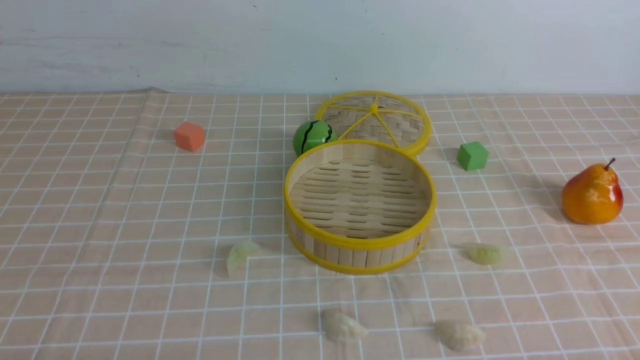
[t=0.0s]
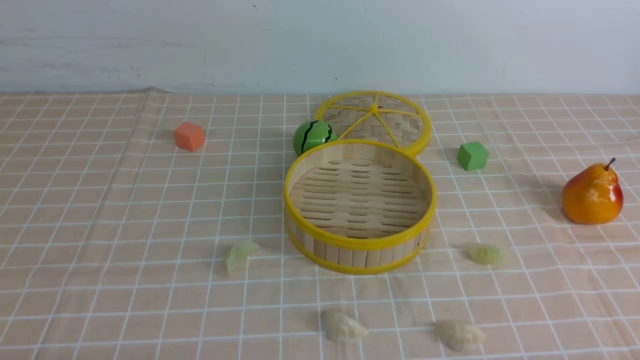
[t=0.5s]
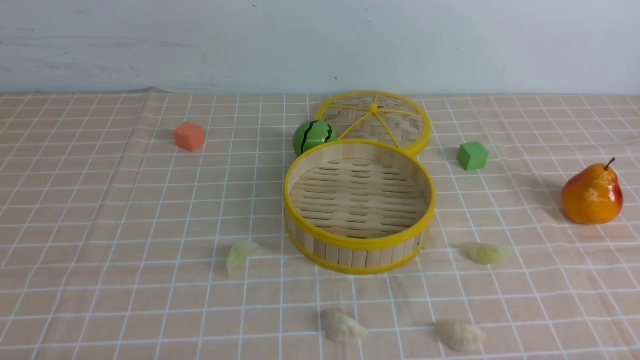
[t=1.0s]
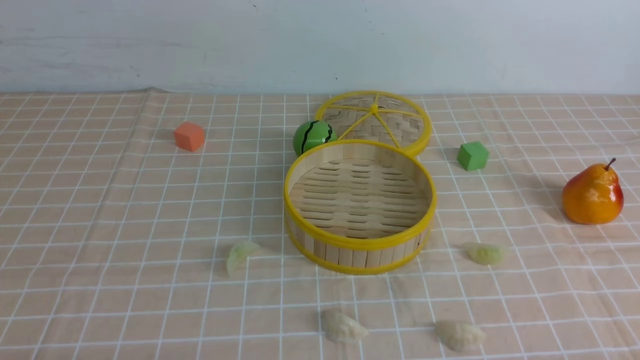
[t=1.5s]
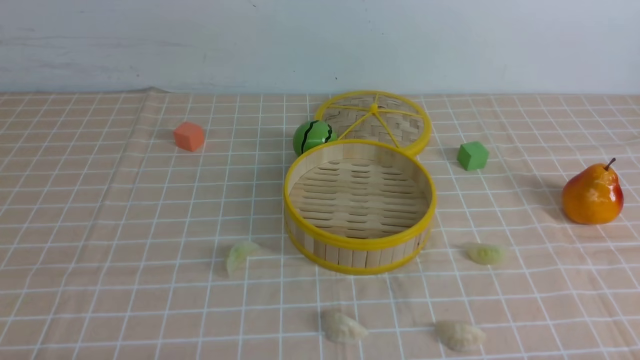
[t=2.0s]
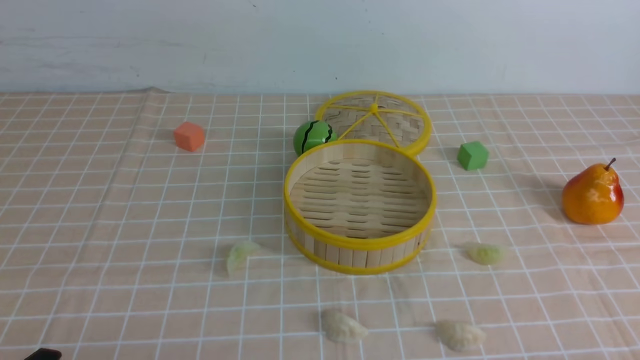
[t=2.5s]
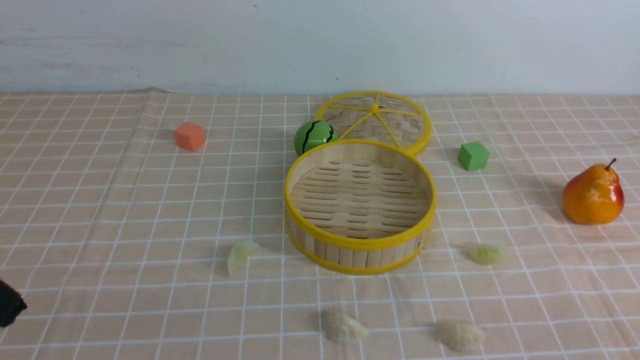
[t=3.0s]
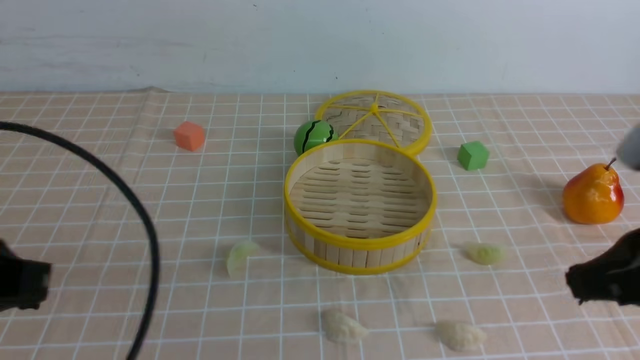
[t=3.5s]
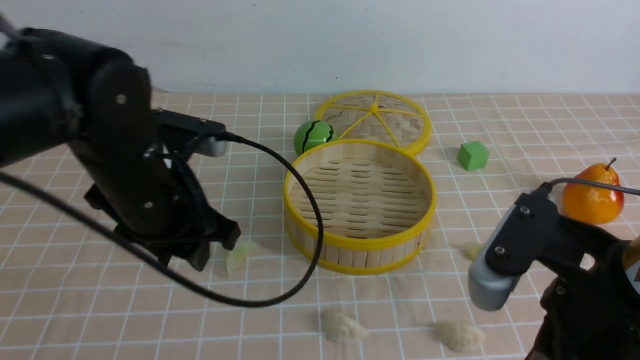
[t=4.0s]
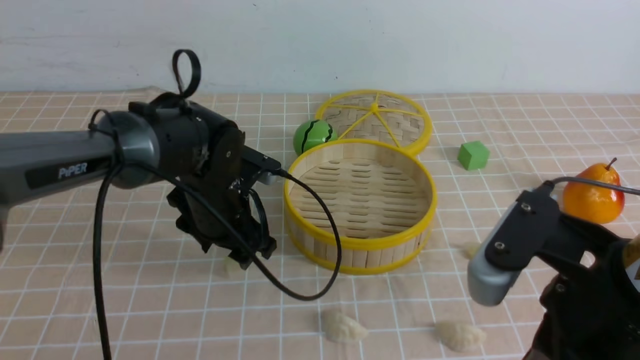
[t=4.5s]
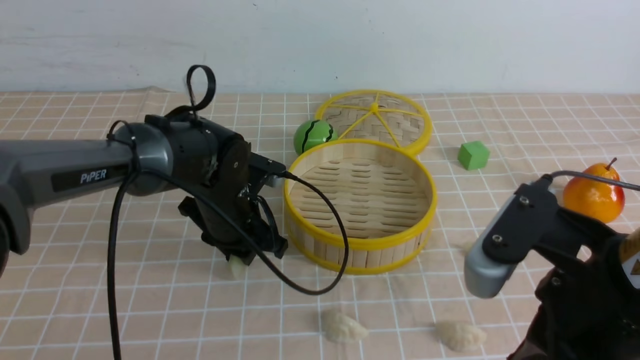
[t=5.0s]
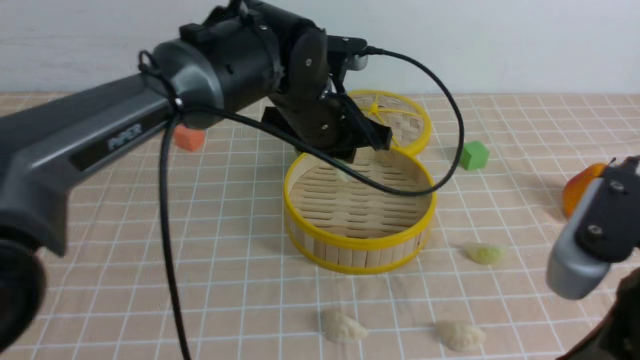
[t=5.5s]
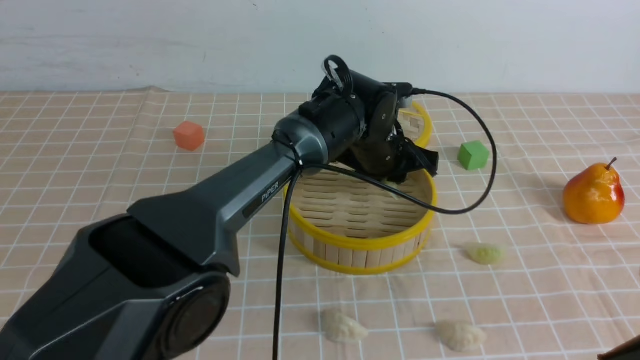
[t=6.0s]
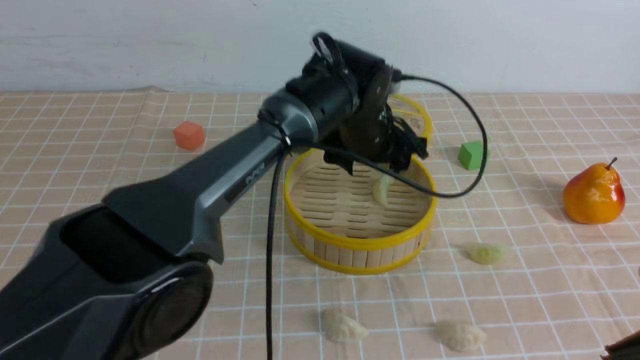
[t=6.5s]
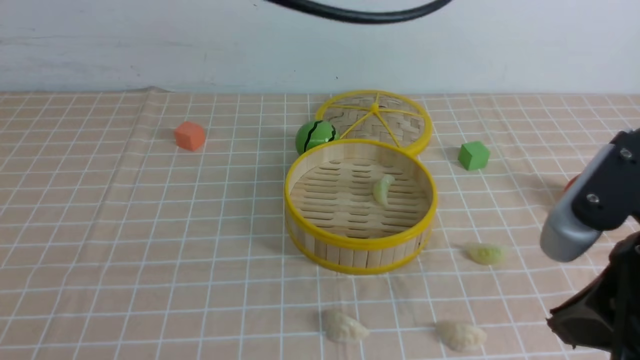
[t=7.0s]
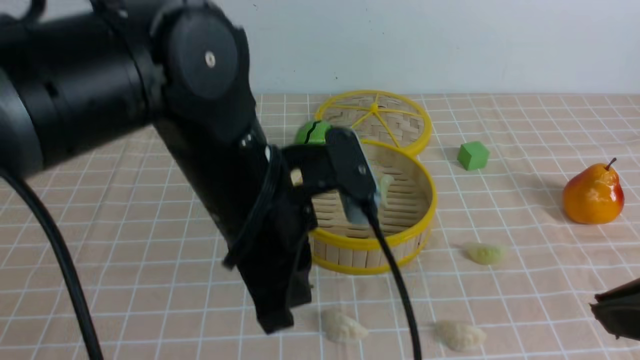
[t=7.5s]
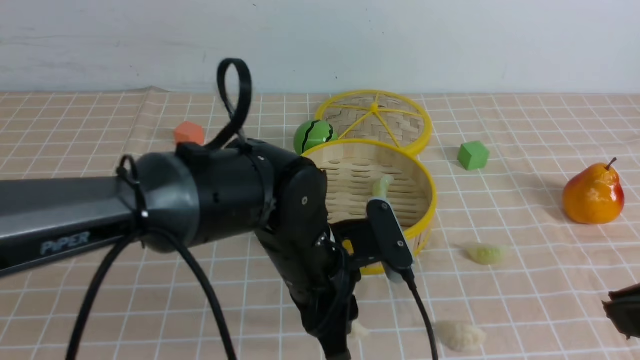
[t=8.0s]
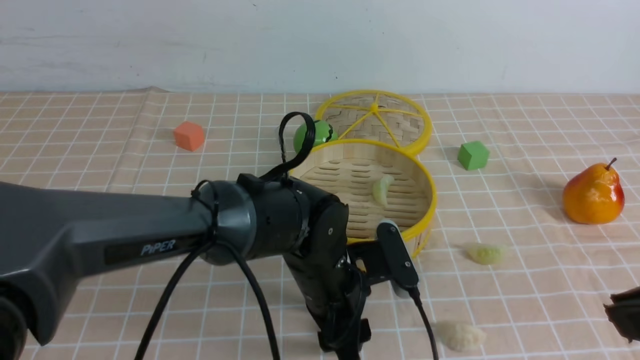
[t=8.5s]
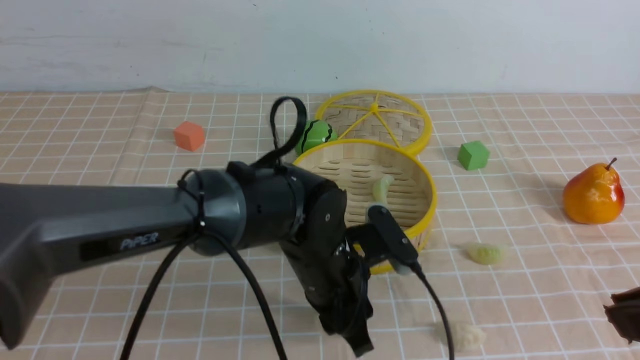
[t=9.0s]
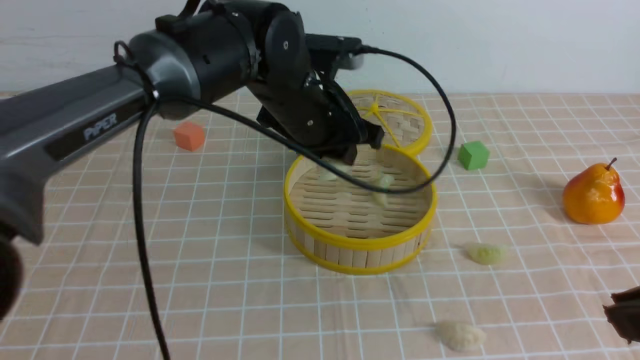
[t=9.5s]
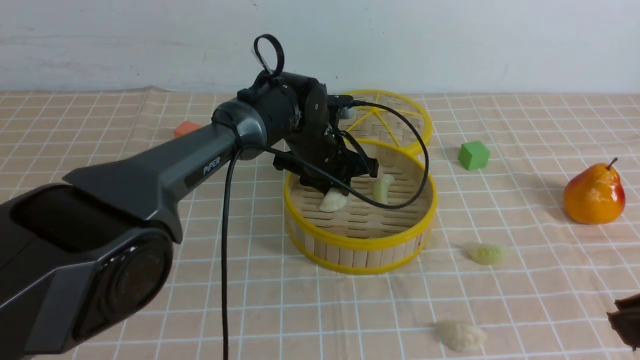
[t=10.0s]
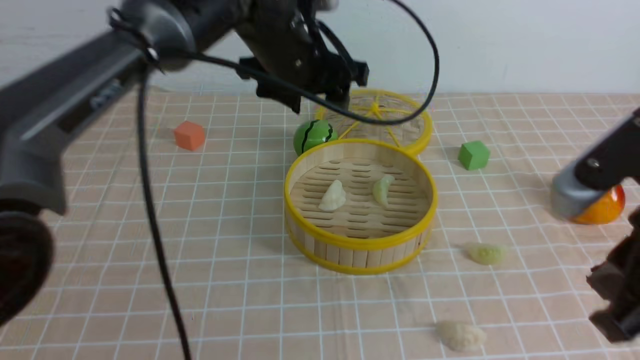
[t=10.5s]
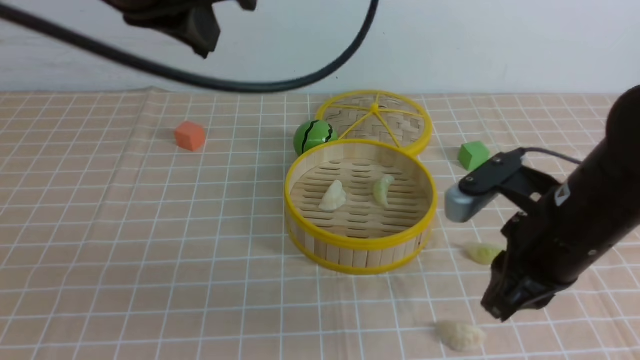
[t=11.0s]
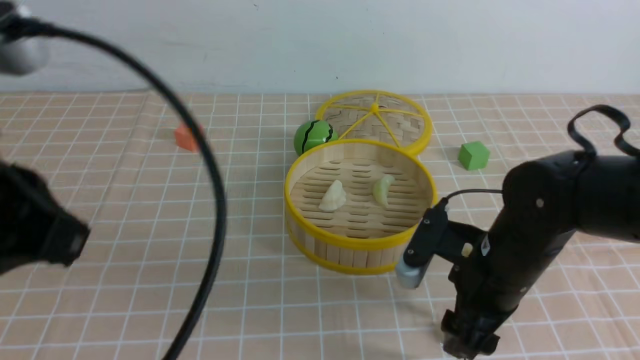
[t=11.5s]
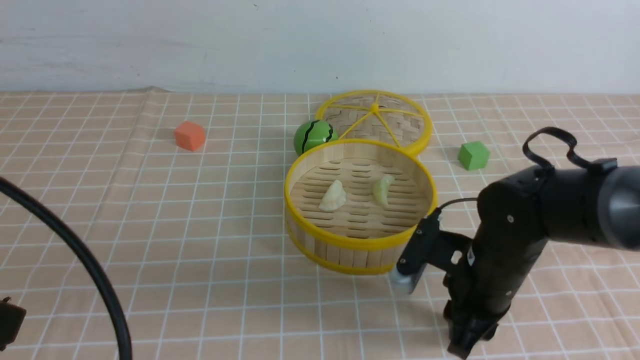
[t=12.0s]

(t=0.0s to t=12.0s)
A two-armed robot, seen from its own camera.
Task of the whole recording: put the dumplings into the steamer on the table with the brown tablecloth.
Step, t=0.0s - t=4.5s: use the left arm to grab a dumpling.
Step, t=5.0s - t=6.5s: use the left arm to put the dumpling into the steamer.
Step, t=7.0s - t=8.5s: use the left arm to grab a dumpling.
Step, t=9.0s - t=10.0s: use the left arm to put the dumpling into the steamer.
Step, t=10.5s - t=11.5s: use the right arm to grab a dumpling.
t=2.0s - t=4.0s: The right gripper shifts approximately 20 cm upward, to the left and forward, and closes up. The left gripper moves forward, upward and to the right, roughly 25 cm, and closes and opens again.
t=4.0s - t=6.0s: The left gripper heads to the right and forward, covering some 30 cm, and opens, then closes again. The right gripper is displaced backward and upward by about 10 cm.
t=6.0s - t=8.0s: The left gripper moves backward, approximately 20 cm, goes upward and returns, some 25 cm each way, and opens and closes again.
t=8.0s - t=10.0s: The left gripper shifts approximately 20 cm forward.
t=10.0s - t=12.0s: The left gripper travels backward, to the left and upward by approximately 40 cm, and closes its fingers. The right gripper travels downward and forward by some 30 cm, and opens its fingers.

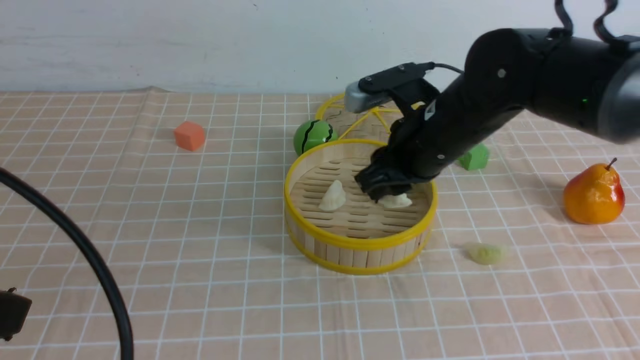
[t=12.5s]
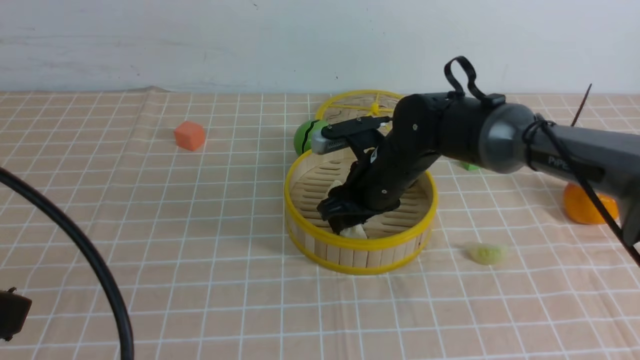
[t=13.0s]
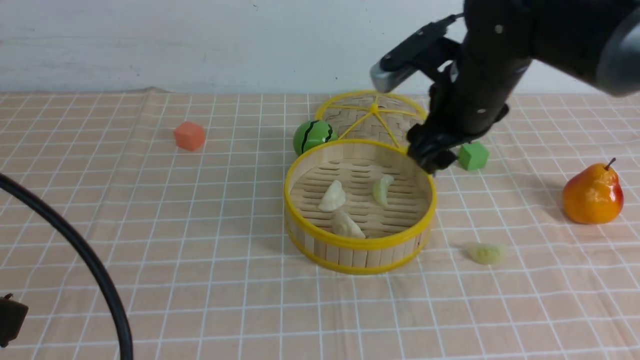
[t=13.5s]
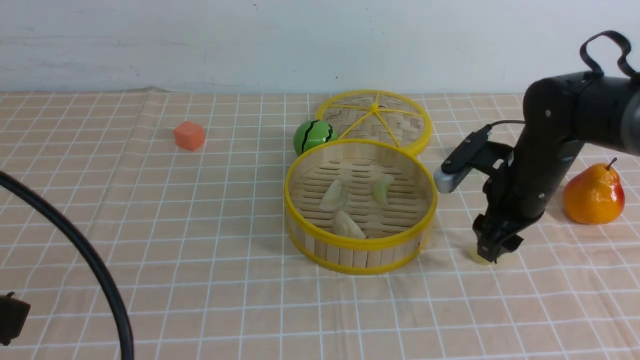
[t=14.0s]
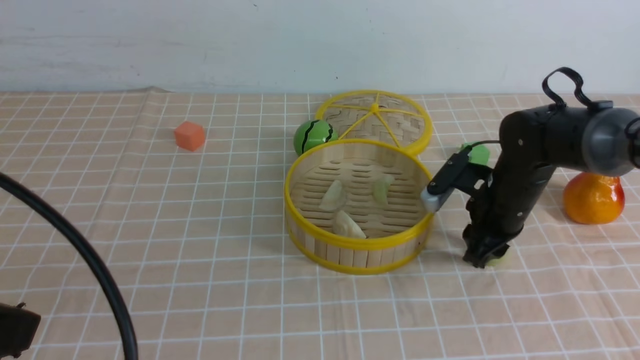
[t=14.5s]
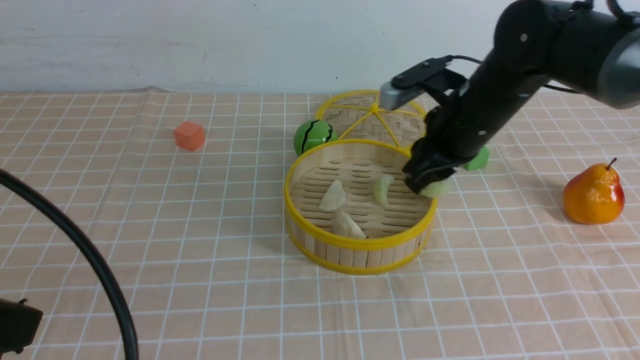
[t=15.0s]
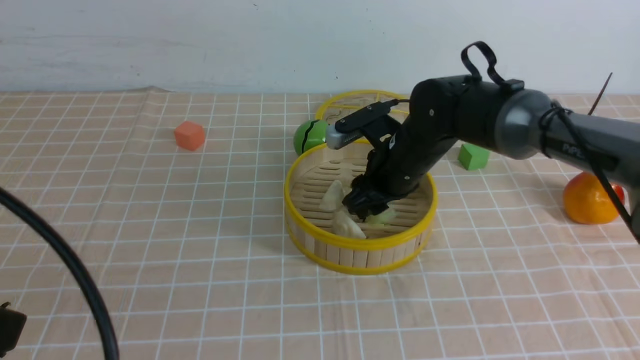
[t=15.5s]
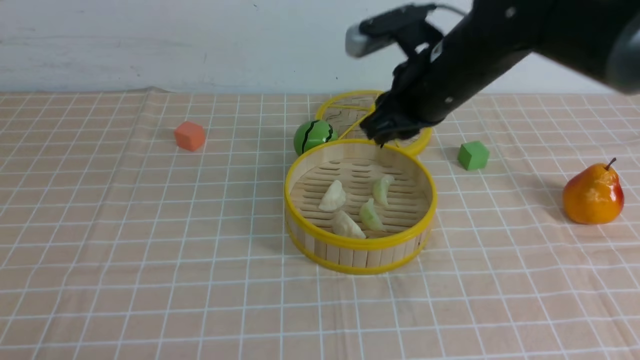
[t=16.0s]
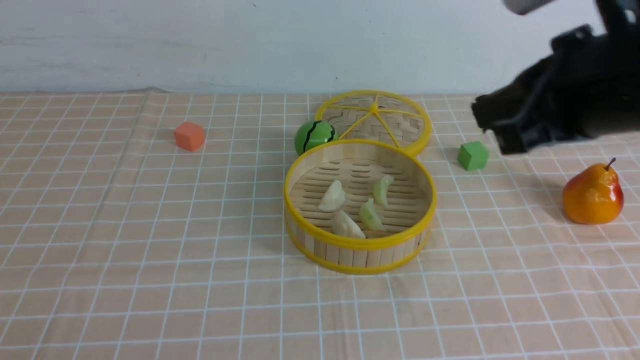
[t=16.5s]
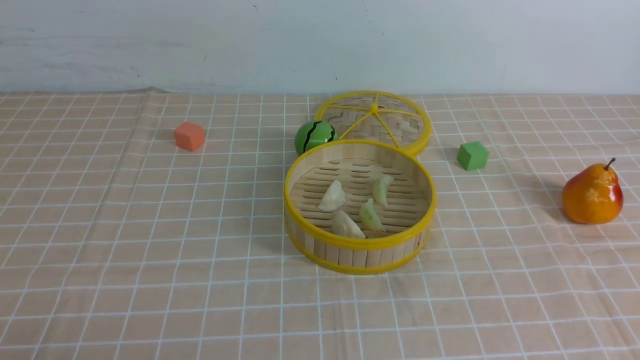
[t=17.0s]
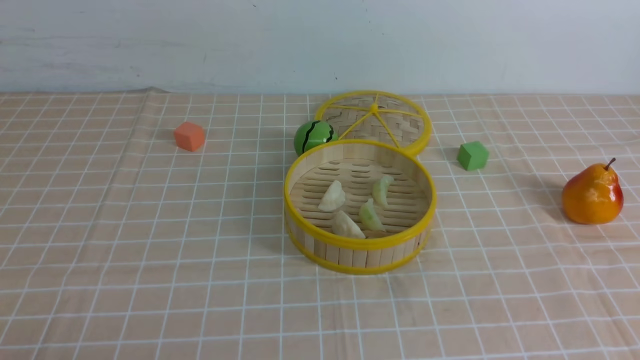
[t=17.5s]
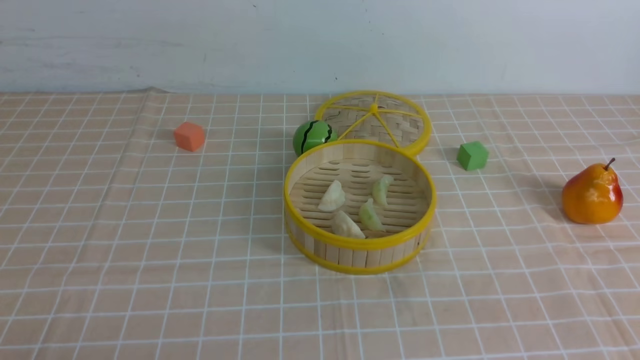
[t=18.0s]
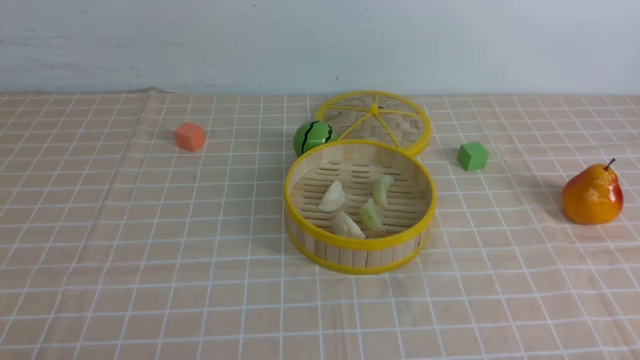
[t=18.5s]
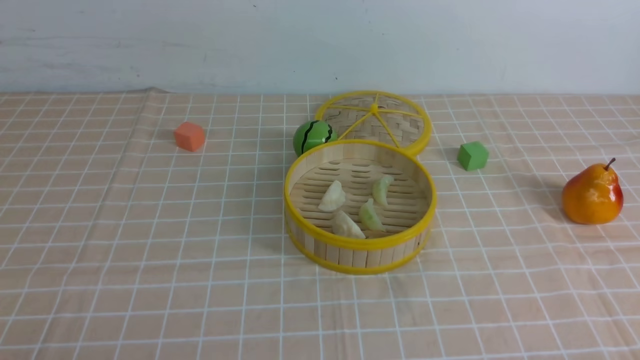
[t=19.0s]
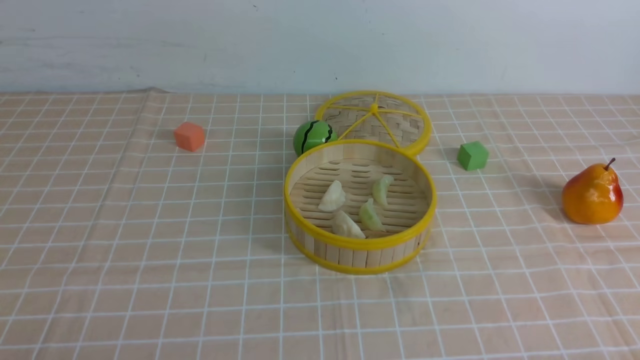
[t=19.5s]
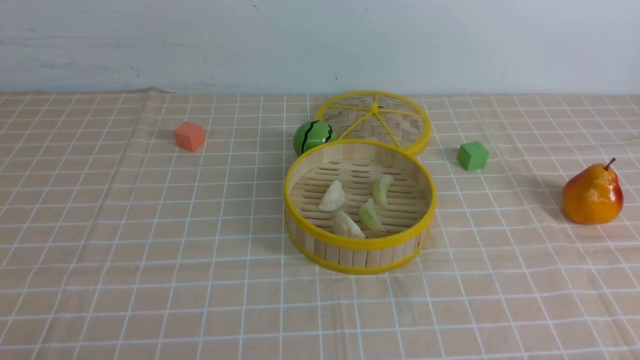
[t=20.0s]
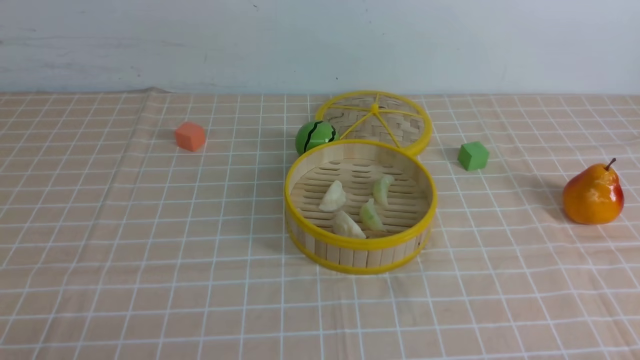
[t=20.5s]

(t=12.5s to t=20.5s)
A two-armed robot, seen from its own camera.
Task of the whole recording: put the dumplings into the steamer on the table with the brown tablecloth.
Step, t=13.5s - t=14.0s: use the right arm to grab a dumpling.
Step, t=15.0s - t=15.5s: use the right arm to put the dumpling into the steamer.
t=12.5s - t=14.5s: The right gripper heads downward, to the right and forward, covering about 15 cm.
t=14.5s - t=16.5s: The left gripper is displaced downward and backward by approximately 10 cm. Meanwhile the right gripper travels upward and backward by about 30 cm, and closes its fingers.
t=16.5s - t=18.5s: The right gripper goes about 30 cm downward, backward and to the right.
